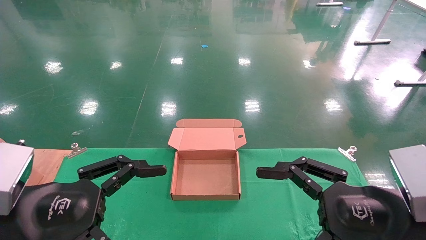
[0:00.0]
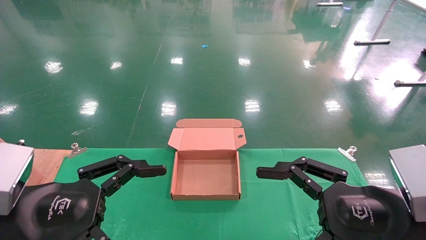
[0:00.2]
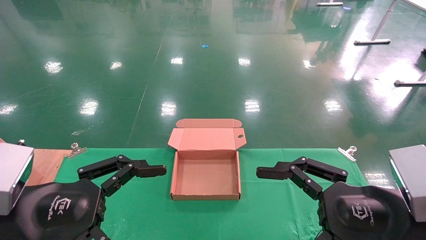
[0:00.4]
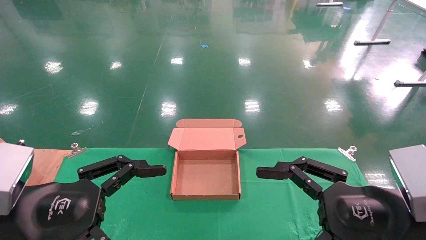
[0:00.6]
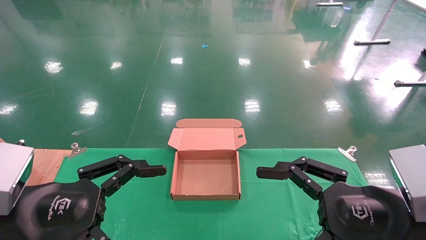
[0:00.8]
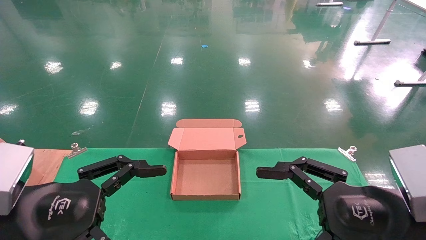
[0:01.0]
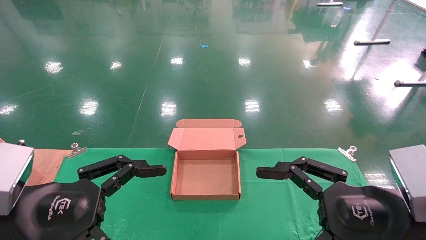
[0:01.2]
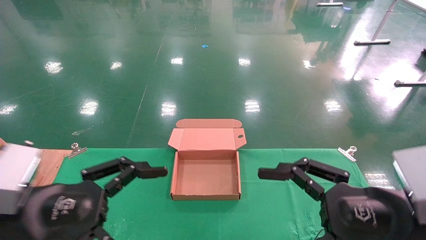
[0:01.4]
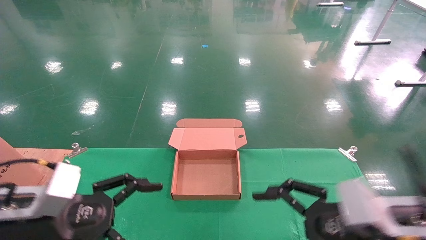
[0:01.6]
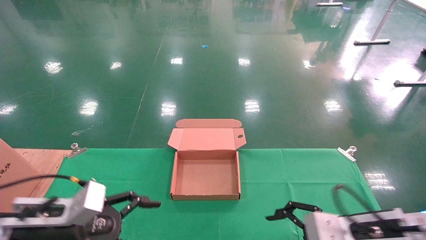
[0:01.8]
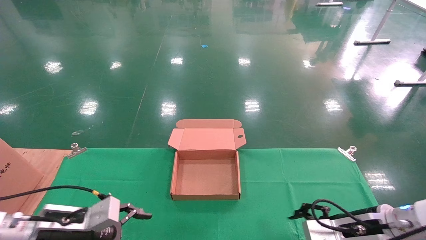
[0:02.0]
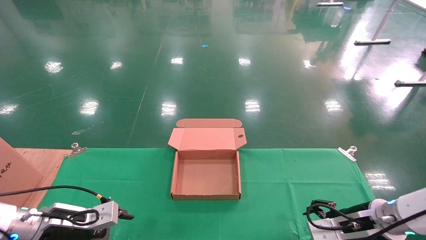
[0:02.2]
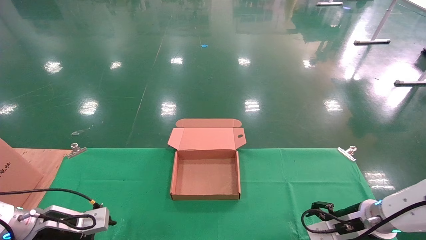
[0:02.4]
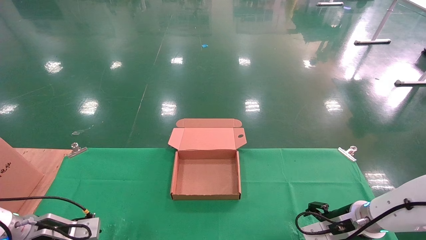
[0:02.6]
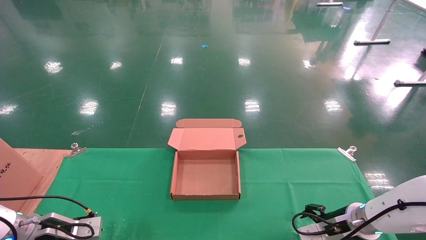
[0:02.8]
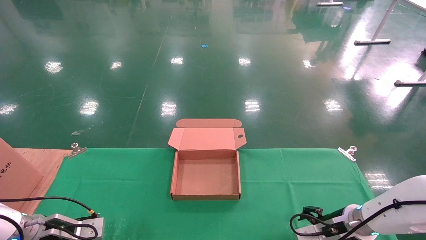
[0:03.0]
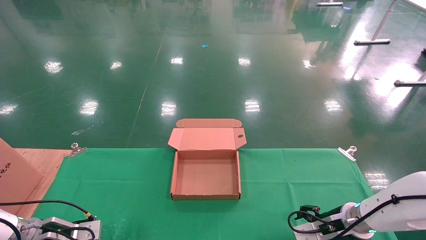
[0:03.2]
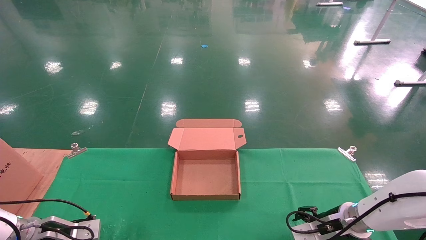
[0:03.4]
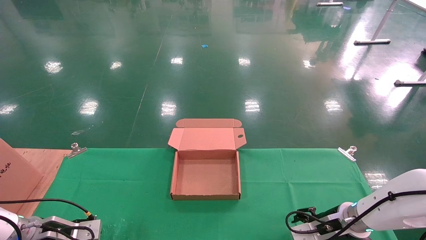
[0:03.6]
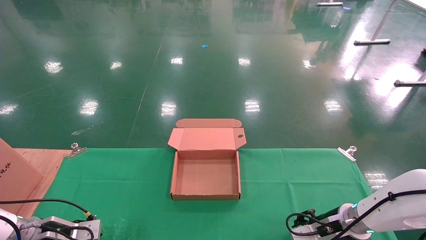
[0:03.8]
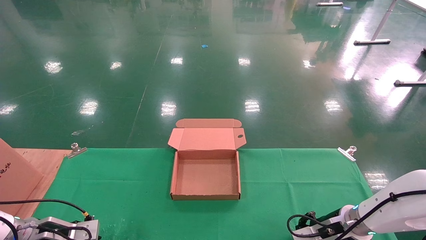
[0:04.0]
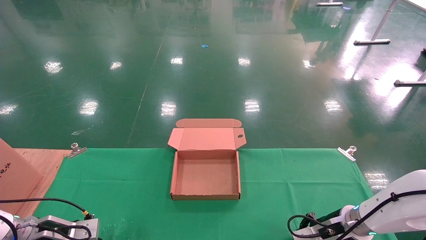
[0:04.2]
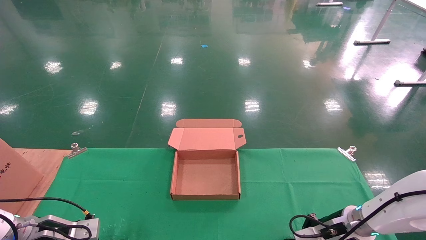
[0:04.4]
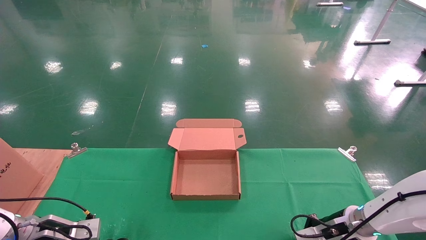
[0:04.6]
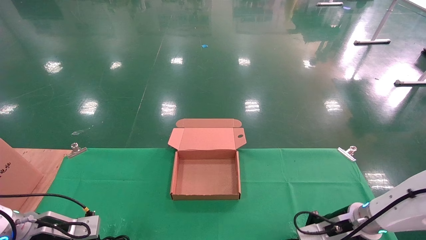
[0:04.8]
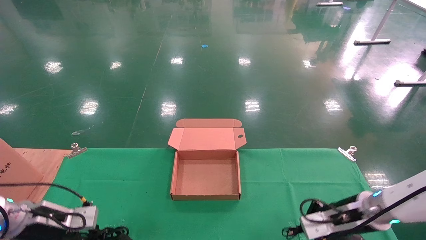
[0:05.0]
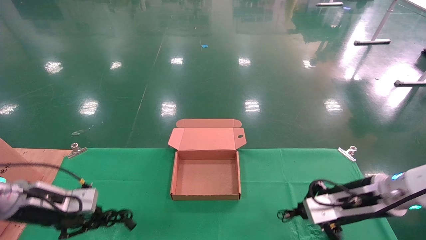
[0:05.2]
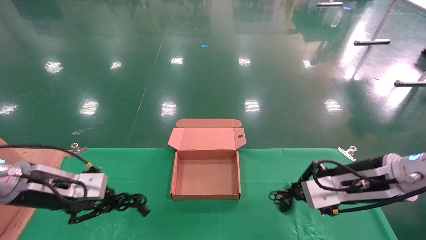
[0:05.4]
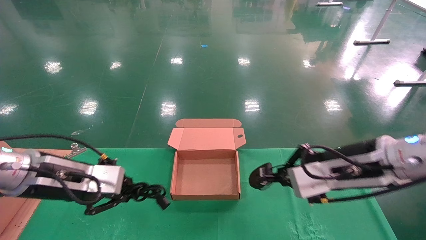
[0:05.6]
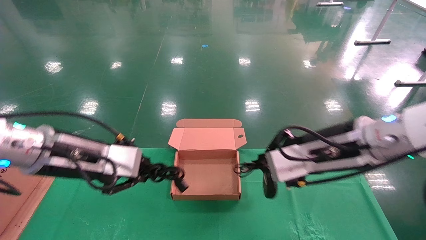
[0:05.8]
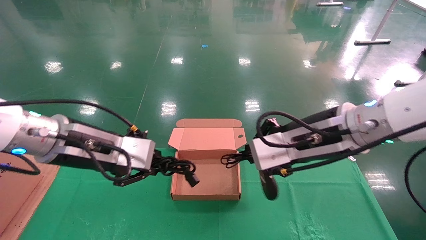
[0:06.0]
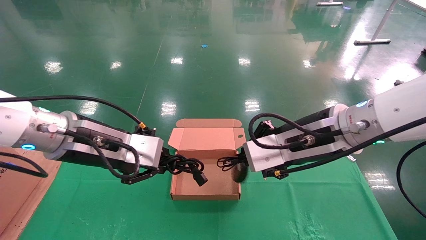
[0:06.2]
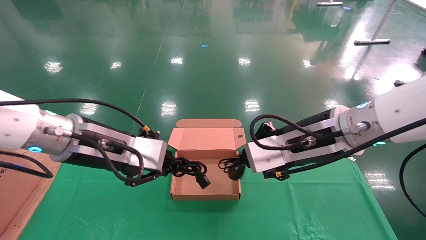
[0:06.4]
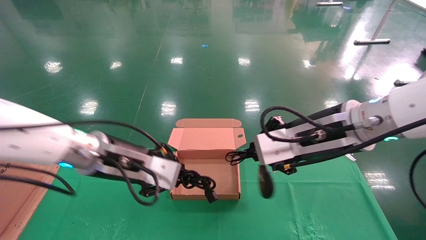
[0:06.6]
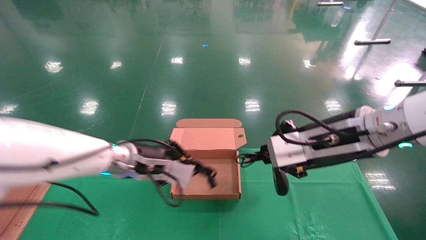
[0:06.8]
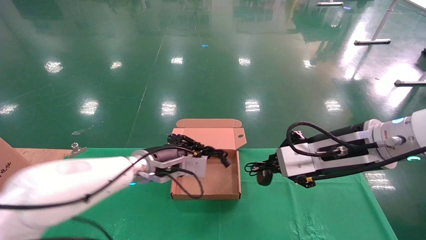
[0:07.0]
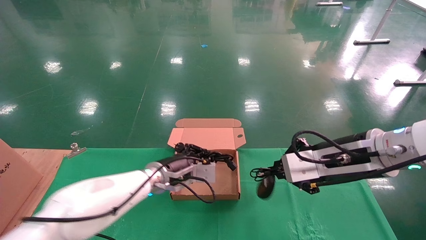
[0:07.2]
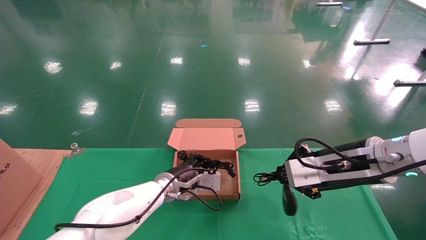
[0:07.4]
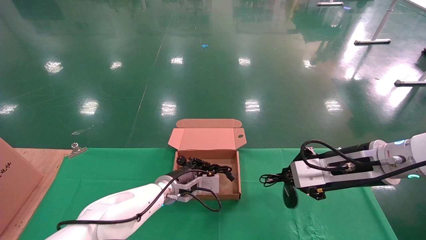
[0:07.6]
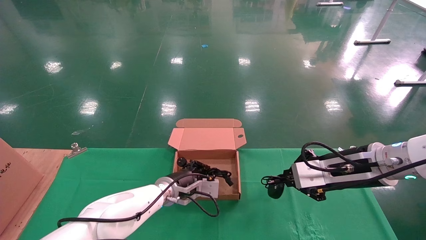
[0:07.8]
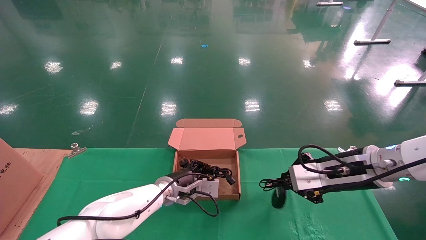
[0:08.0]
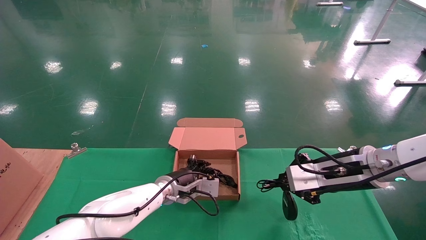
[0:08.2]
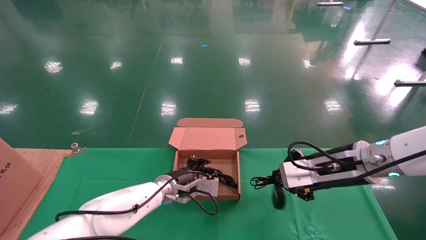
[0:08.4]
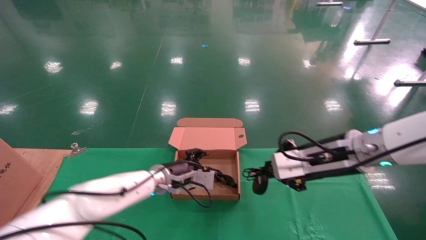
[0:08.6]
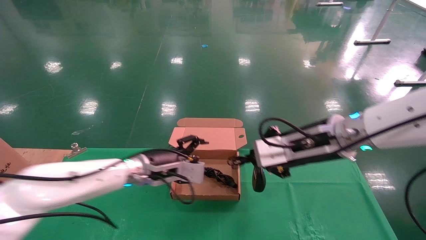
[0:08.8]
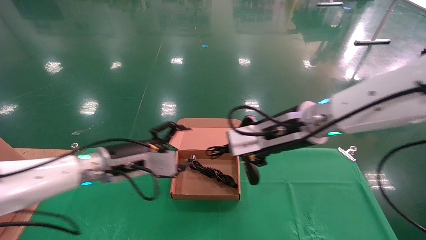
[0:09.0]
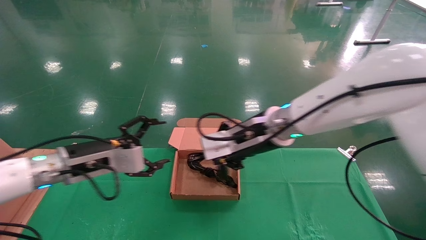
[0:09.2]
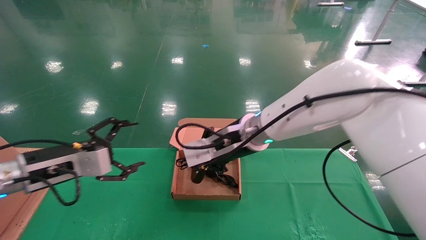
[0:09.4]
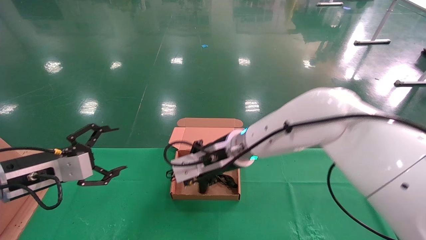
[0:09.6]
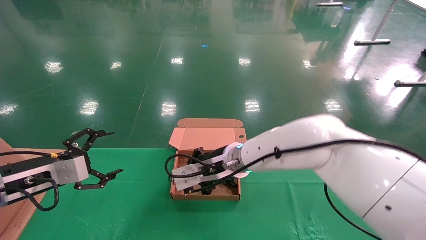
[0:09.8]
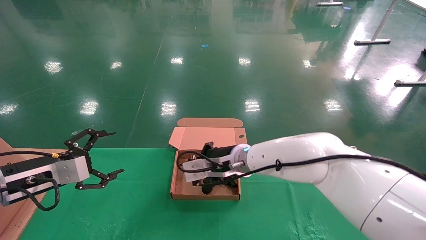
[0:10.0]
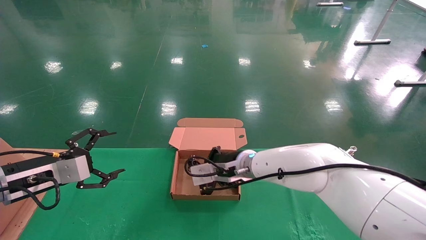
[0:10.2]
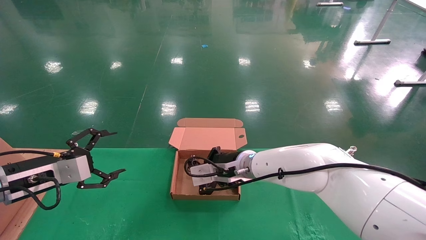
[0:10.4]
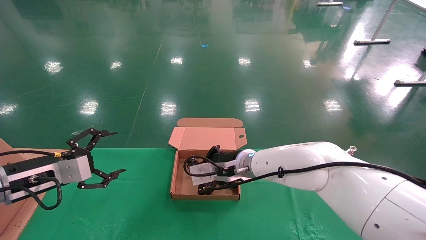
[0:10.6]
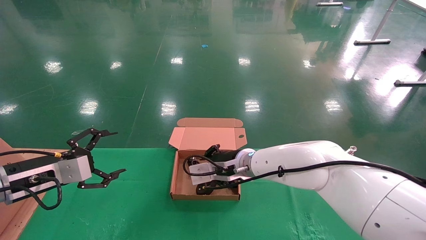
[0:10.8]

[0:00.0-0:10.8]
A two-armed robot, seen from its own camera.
Step, 0:01.8 to 0:05.2: Grab and lift both the mouse and power cord from the accessory packaging area at the same time.
Step, 0:05.4 to 0:10.2: Place the mouse and power cord into the box.
0:00.0 to 0:01.6: The right gripper shifts about 5 cm downward; the left gripper travels forward by about 5 cm.
0:01.6 to 0:03.0: The left gripper shifts about 20 cm downward, forward and to the left. The right gripper is displaced forward and downward by some 20 cm.
0:03.0 to 0:04.6: The right gripper closes its fingers. Meanwhile the left gripper closes up.
0:04.6 to 0:06.2: The right gripper is displaced upward, to the left and backward by some 30 cm; the left gripper moves upward and to the right, approximately 30 cm.
0:06.2 to 0:07.8: The right gripper travels to the right and downward by some 10 cm, while the left gripper heads downward, forward and to the right, covering roughly 30 cm.
0:07.8 to 0:09.2: The right gripper heads to the left, covering some 15 cm; the left gripper moves to the left, upward and backward, approximately 25 cm, and opens.
0:09.2 to 0:10.8: The right gripper goes about 15 cm downward and forward. The left gripper heads to the left, covering about 10 cm.

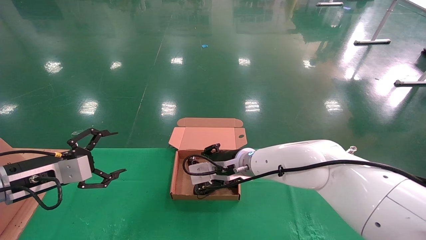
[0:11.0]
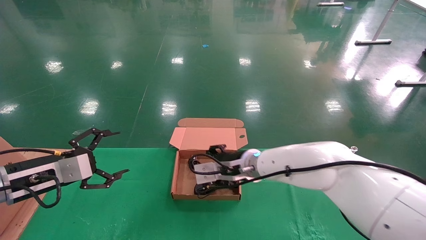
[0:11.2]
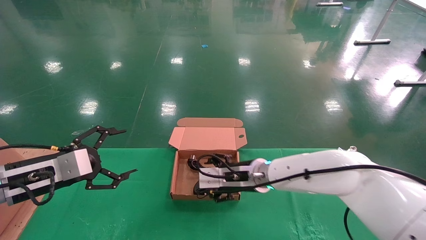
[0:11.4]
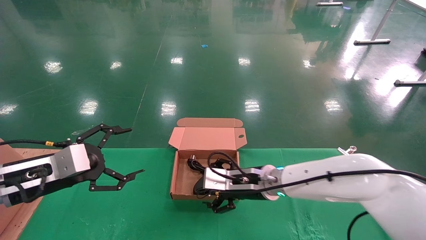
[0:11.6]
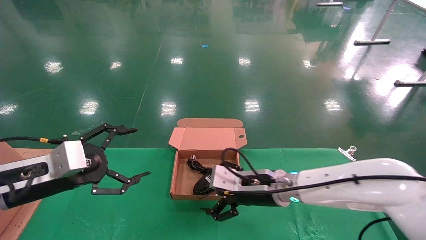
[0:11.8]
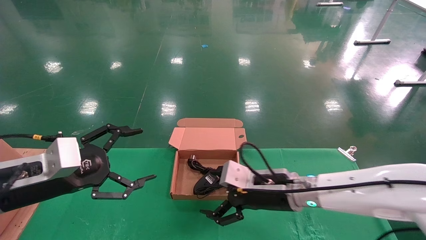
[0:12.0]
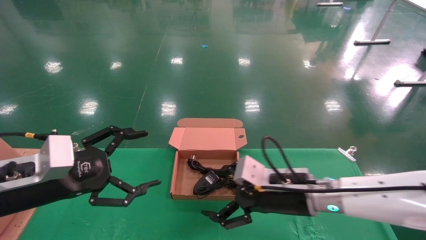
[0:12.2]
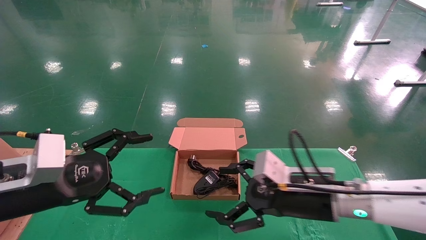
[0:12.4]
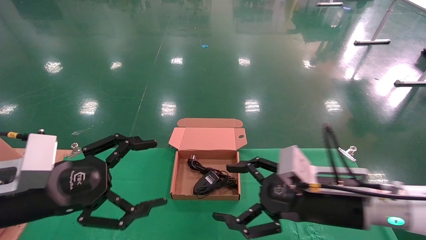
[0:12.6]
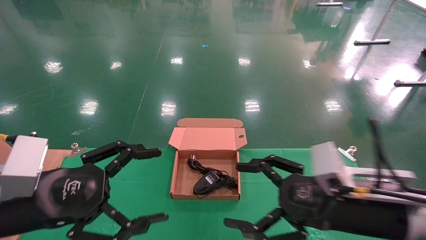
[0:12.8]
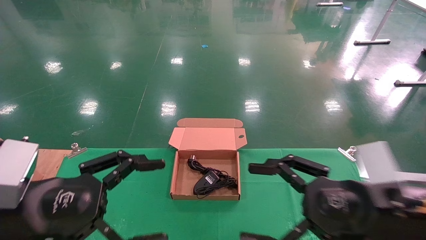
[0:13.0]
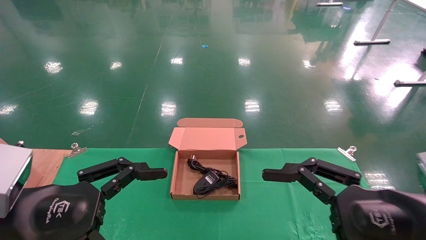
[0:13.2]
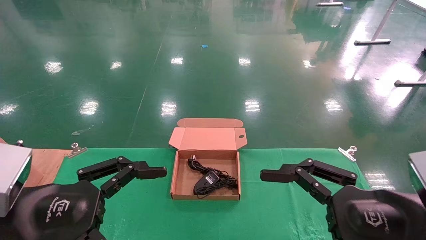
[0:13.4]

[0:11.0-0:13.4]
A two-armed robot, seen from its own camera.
0:11.0 to 0:12.2: The right gripper goes approximately 15 cm to the right and backward, and opens up; the left gripper moves backward and to the right, some 10 cm.
0:12.2 to 0:13.4: The right gripper moves backward, to the right and upward, roughly 20 cm; the left gripper moves backward, roughly 10 cm.
